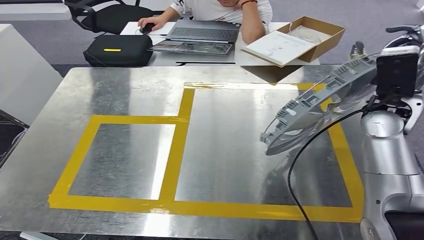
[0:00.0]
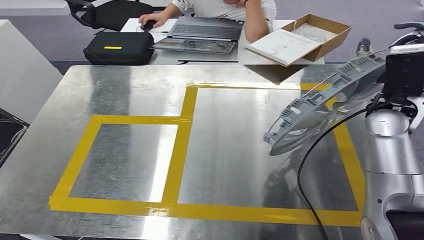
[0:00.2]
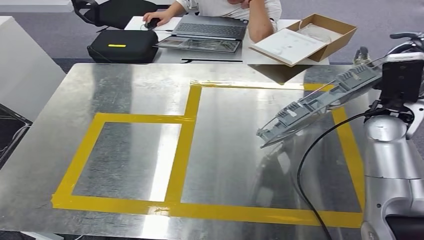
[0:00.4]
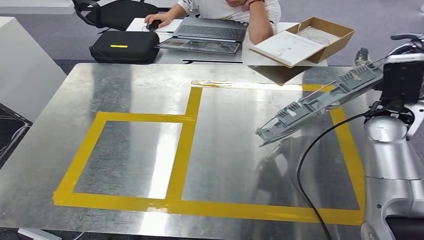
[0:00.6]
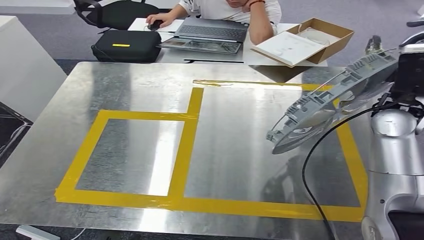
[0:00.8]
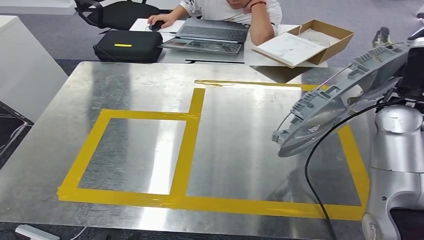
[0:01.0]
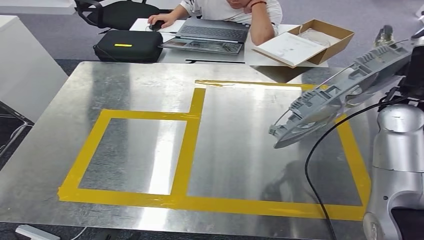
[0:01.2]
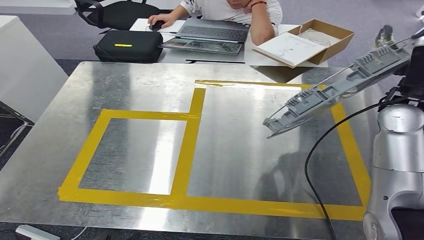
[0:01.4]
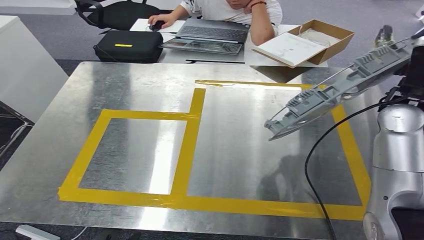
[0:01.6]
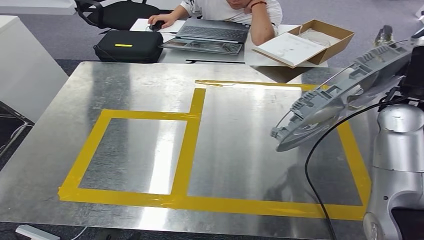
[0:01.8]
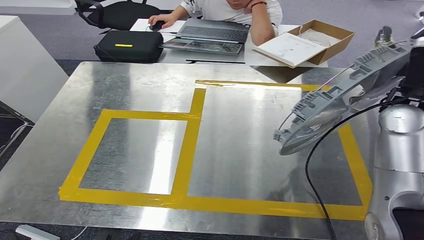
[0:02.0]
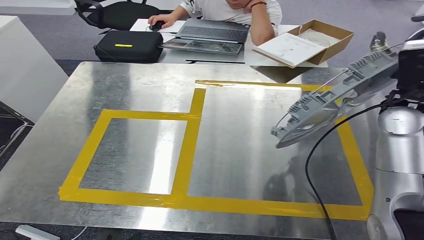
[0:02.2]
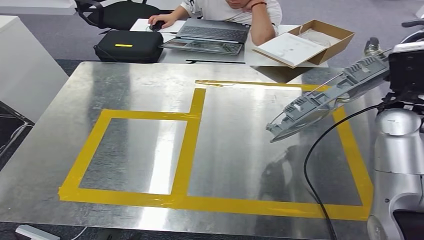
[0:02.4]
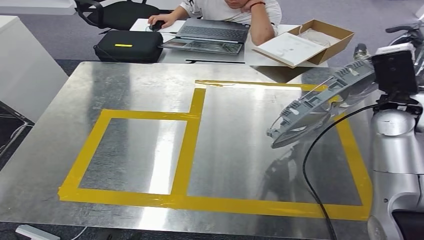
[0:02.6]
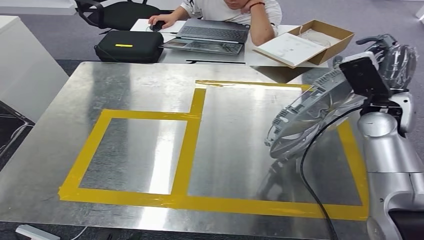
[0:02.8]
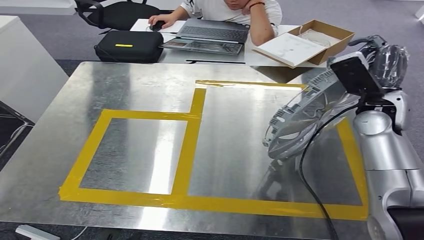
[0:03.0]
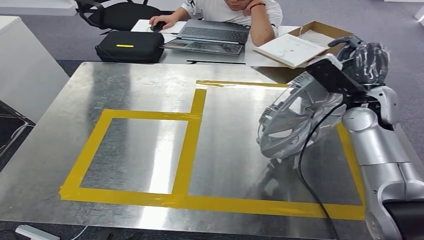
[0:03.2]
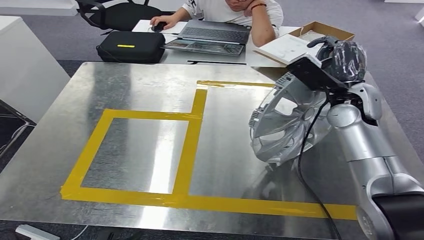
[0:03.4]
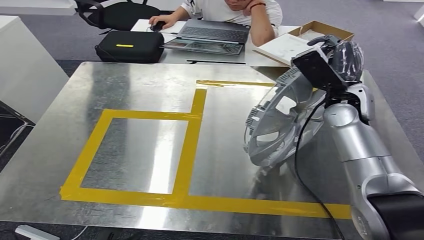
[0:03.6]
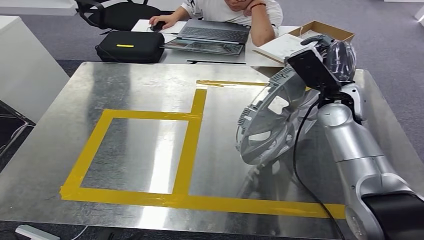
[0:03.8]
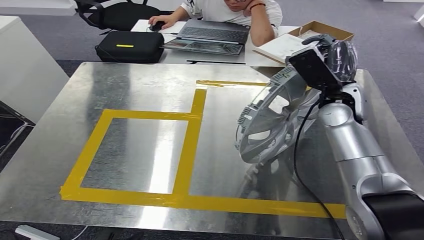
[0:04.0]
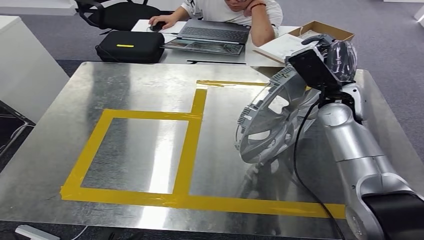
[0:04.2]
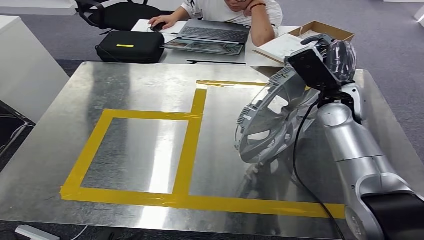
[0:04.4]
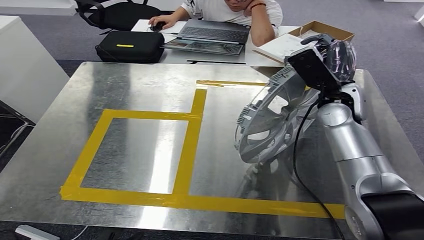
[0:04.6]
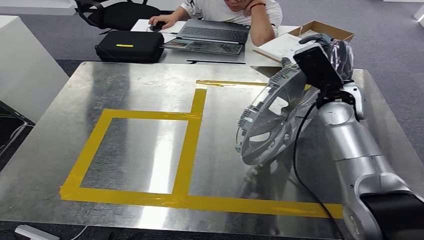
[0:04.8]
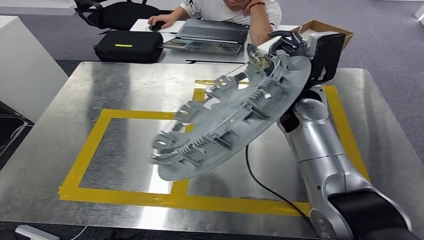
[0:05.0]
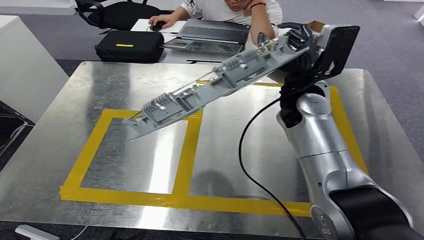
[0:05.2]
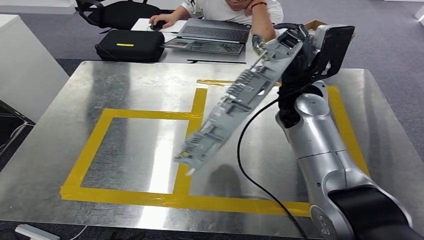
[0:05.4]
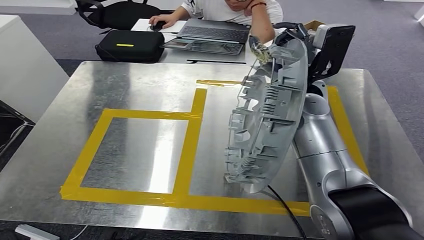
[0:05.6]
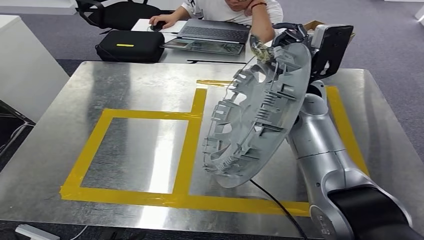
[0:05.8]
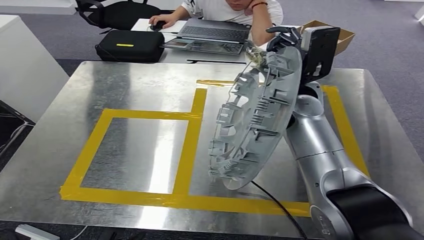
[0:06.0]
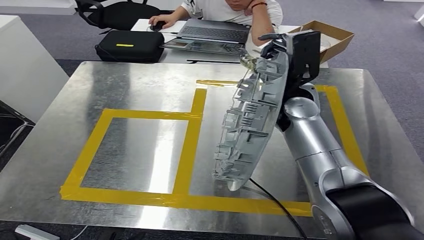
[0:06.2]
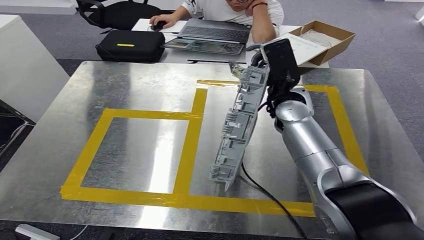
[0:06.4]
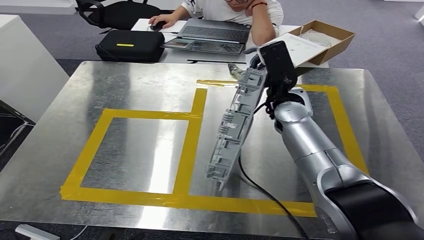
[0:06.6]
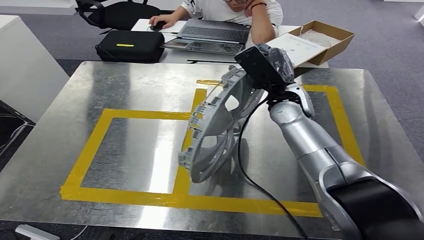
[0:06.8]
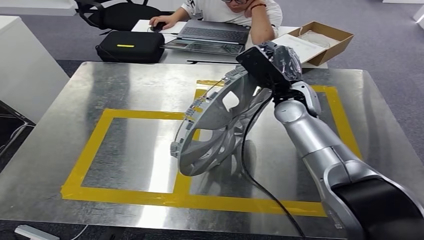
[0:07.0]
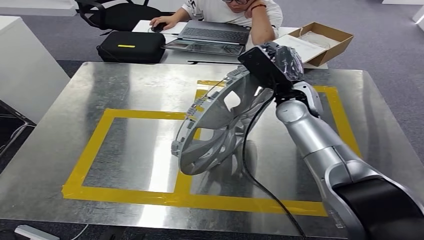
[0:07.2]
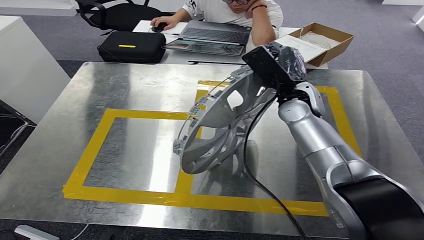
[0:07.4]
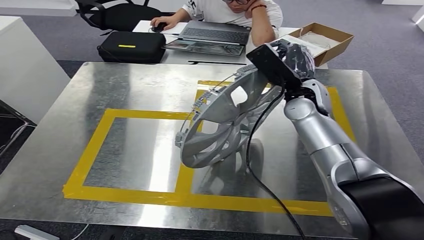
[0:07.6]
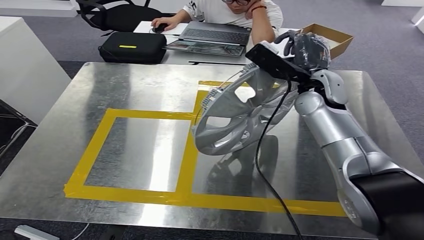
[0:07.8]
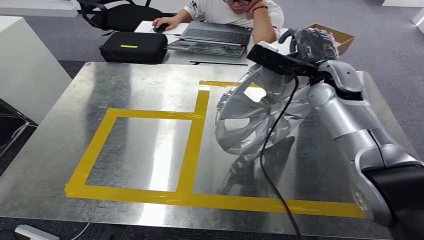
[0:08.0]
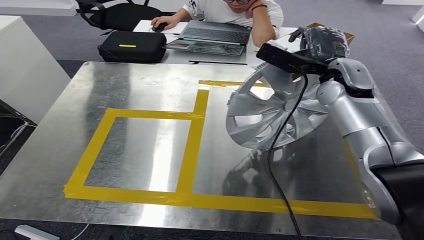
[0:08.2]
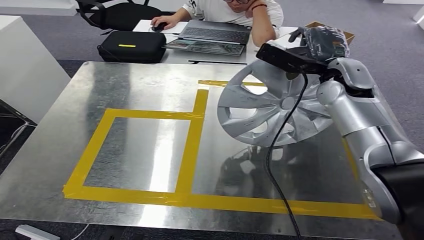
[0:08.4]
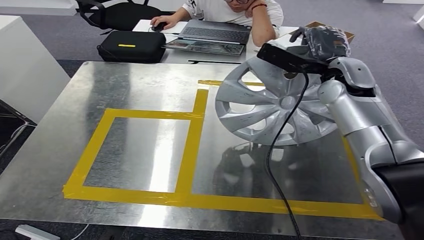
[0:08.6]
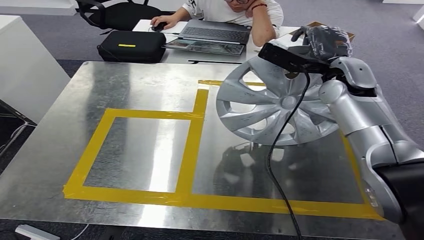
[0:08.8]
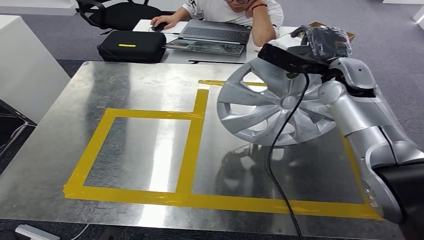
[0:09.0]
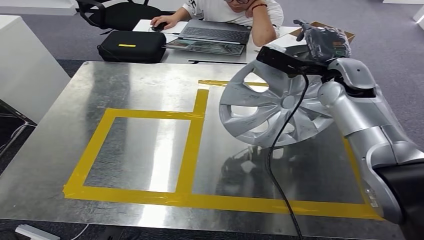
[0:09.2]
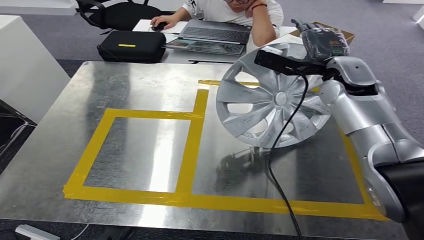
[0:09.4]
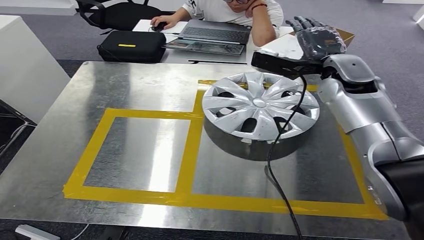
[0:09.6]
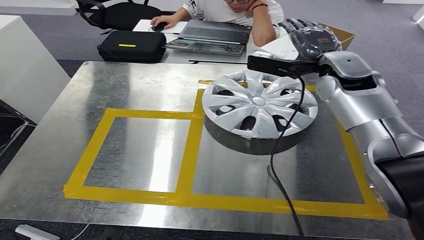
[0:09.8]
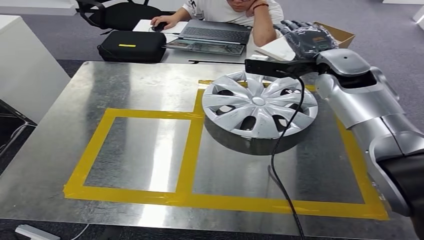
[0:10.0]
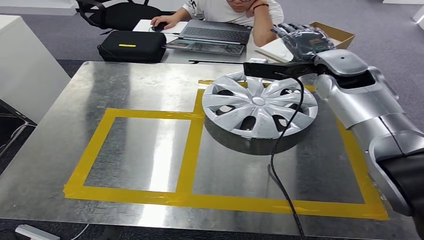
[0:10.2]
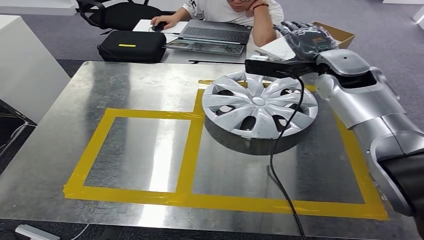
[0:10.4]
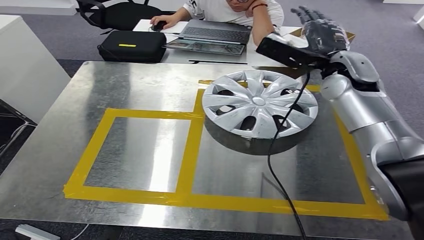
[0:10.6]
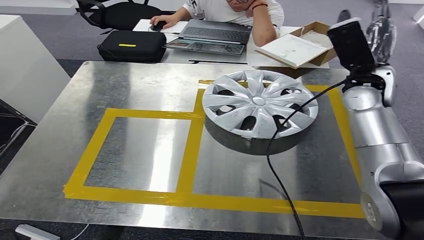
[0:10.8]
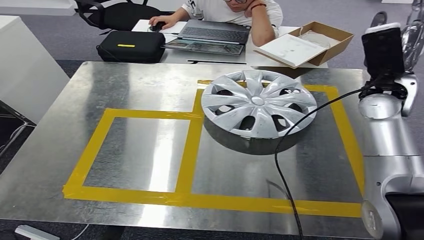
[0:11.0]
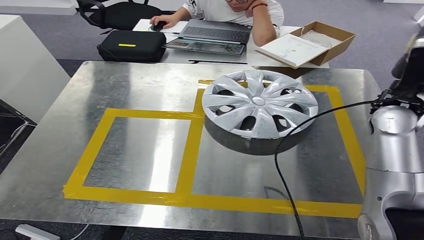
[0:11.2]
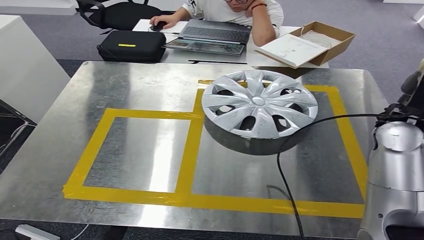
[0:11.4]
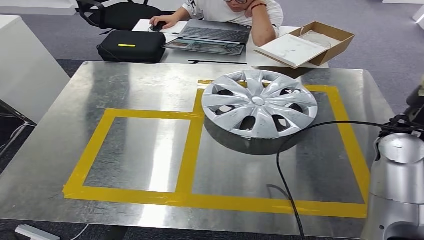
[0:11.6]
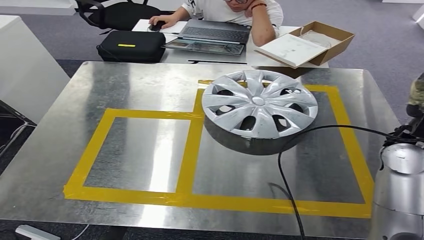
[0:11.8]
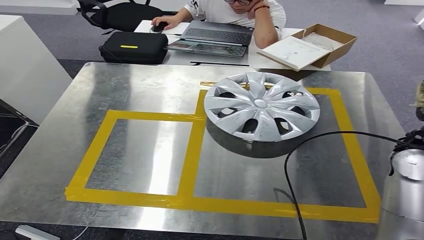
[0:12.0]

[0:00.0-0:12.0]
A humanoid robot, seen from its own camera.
Step, 0:00.0 to 0:11.2: Insert the small component into the corresponding slot on the workbench.
0:01.6 to 0:03.0: The right hand ends up approximately 5 cm from where it was.

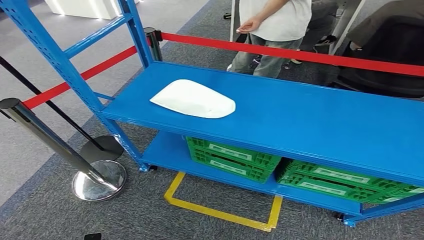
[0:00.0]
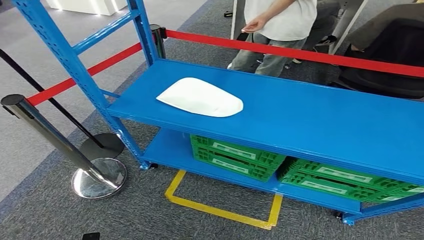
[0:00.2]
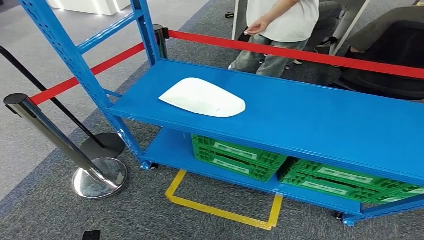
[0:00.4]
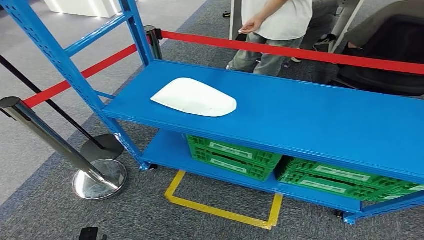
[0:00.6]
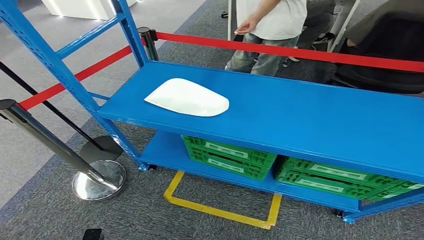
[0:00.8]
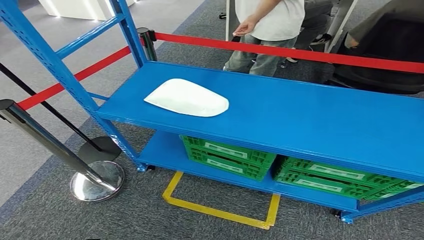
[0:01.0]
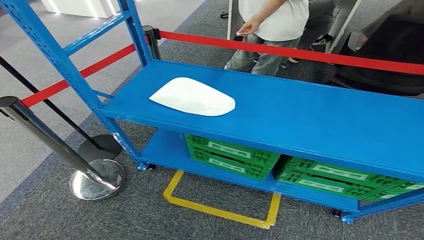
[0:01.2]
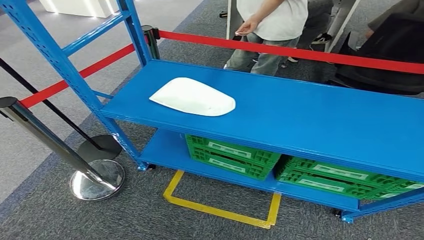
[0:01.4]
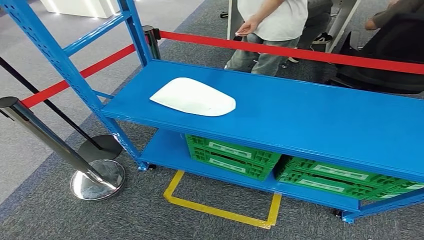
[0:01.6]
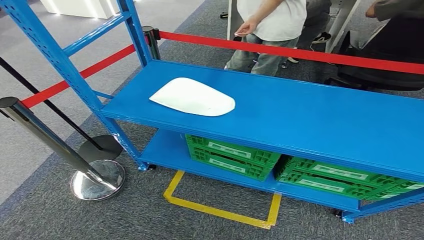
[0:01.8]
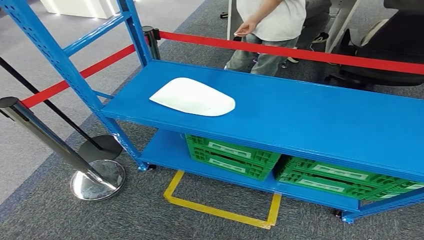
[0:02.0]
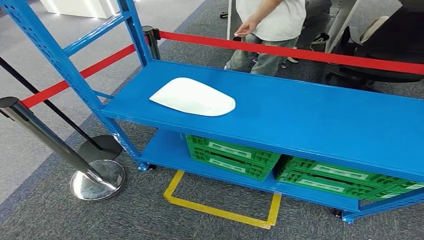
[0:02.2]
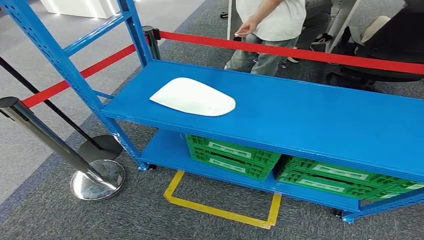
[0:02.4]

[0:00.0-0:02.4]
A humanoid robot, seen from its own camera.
Step, 0:00.0 to 0:02.4: Move to the initial position of the workbench.
0:00.0 to 0:01.2: There are only small adjustments of the hands.
